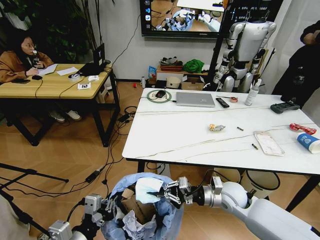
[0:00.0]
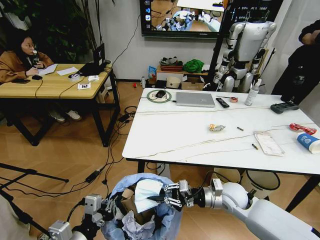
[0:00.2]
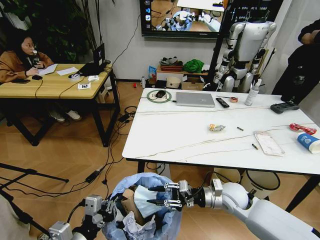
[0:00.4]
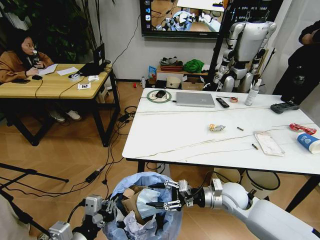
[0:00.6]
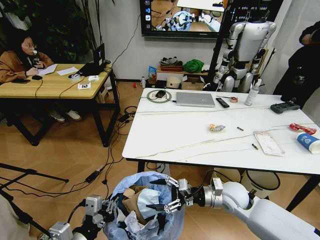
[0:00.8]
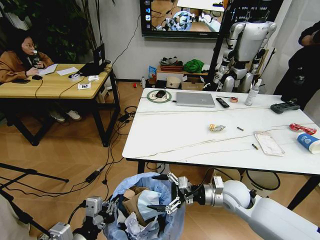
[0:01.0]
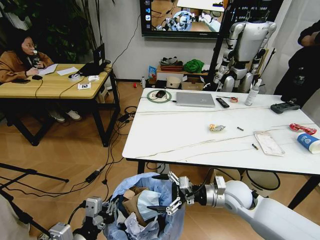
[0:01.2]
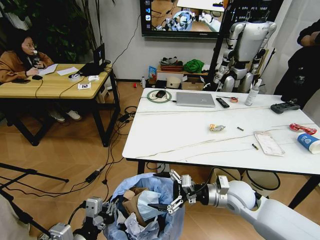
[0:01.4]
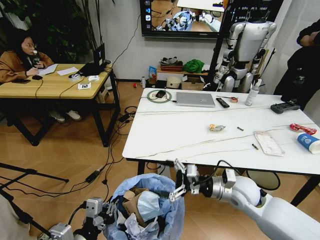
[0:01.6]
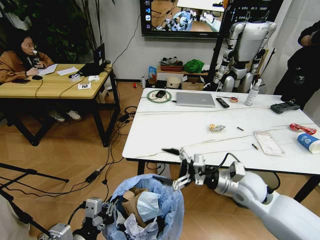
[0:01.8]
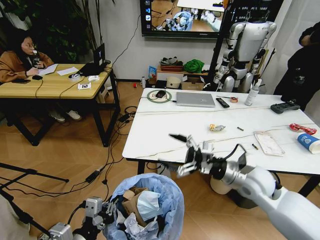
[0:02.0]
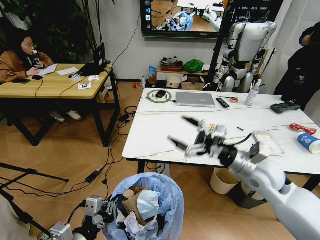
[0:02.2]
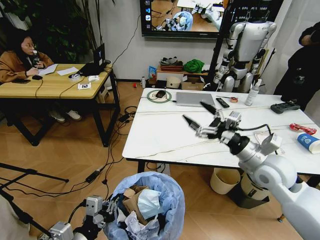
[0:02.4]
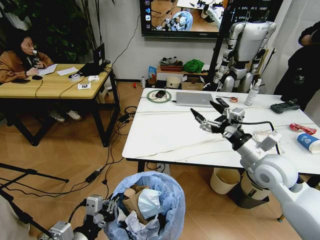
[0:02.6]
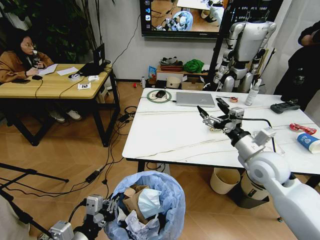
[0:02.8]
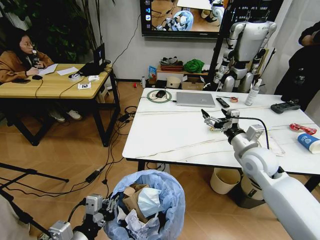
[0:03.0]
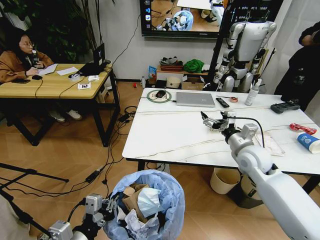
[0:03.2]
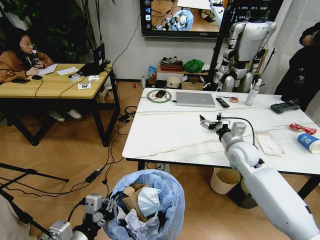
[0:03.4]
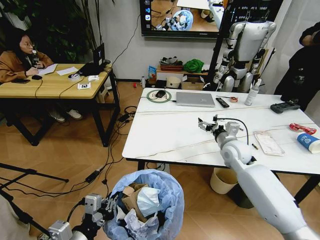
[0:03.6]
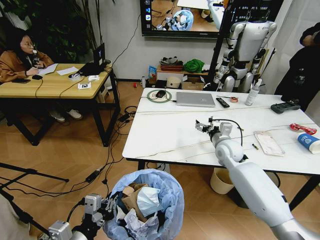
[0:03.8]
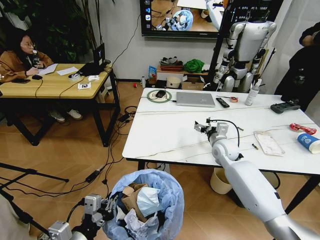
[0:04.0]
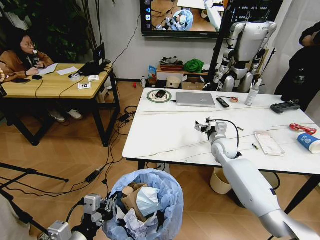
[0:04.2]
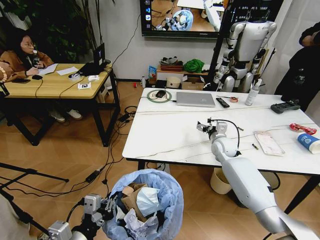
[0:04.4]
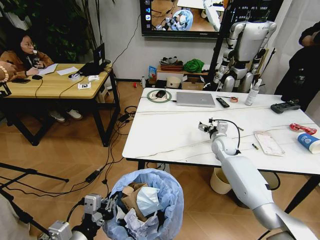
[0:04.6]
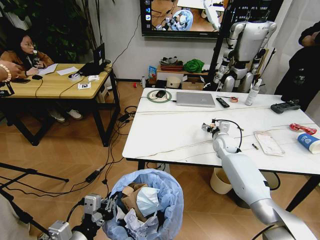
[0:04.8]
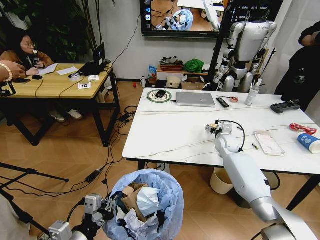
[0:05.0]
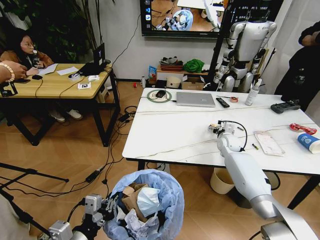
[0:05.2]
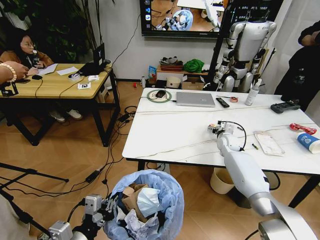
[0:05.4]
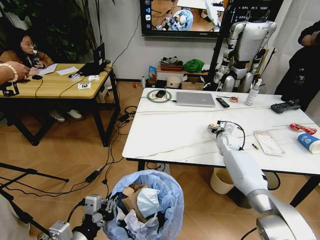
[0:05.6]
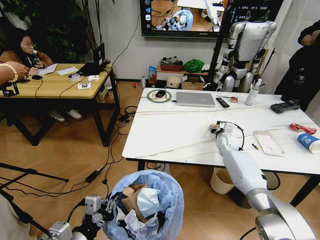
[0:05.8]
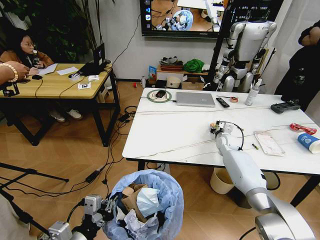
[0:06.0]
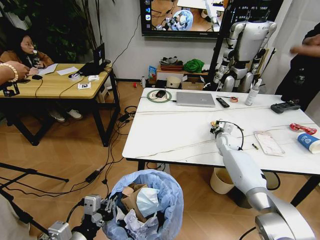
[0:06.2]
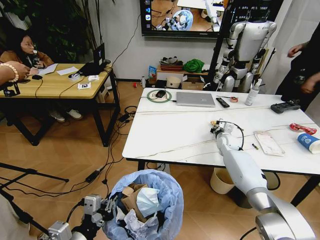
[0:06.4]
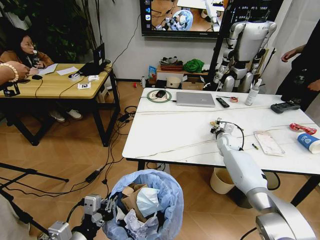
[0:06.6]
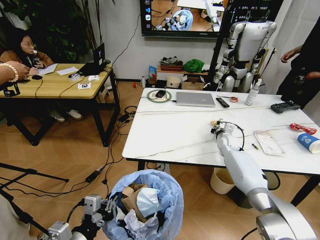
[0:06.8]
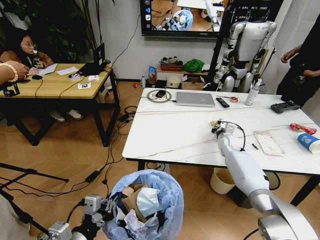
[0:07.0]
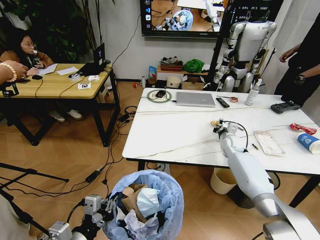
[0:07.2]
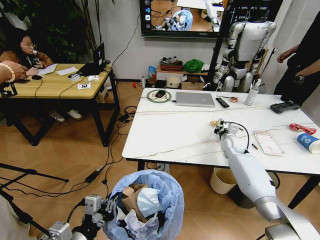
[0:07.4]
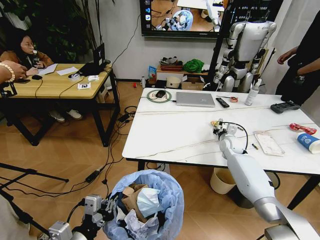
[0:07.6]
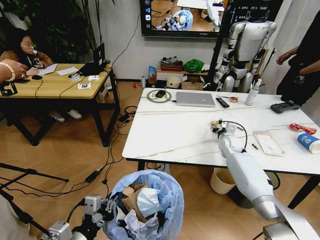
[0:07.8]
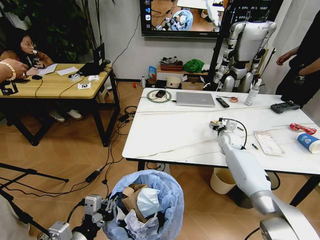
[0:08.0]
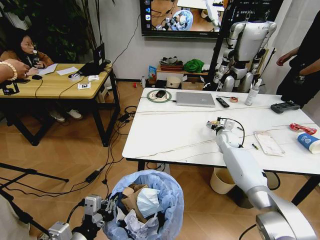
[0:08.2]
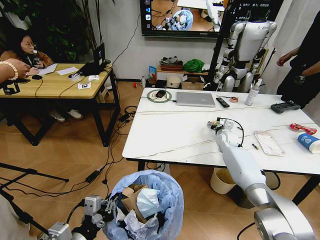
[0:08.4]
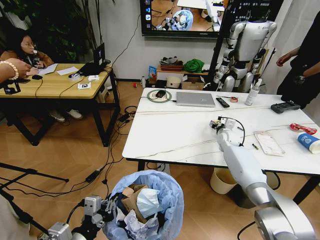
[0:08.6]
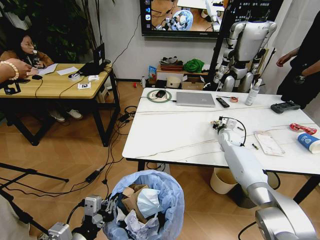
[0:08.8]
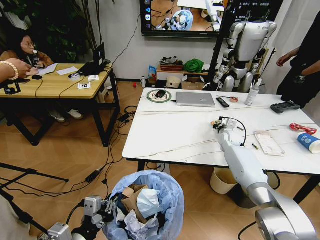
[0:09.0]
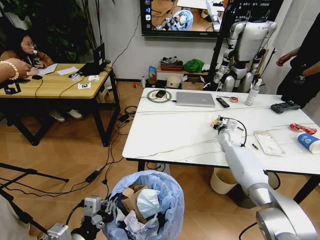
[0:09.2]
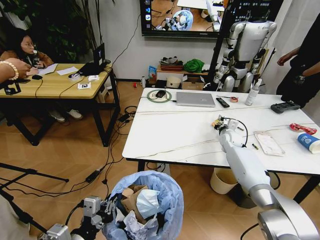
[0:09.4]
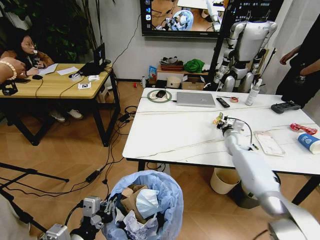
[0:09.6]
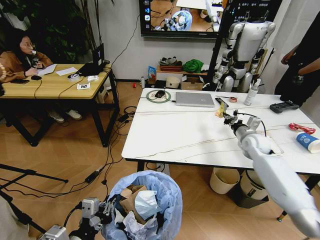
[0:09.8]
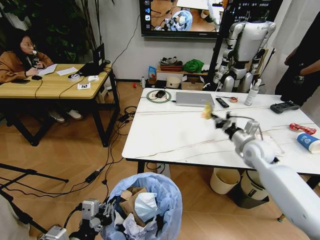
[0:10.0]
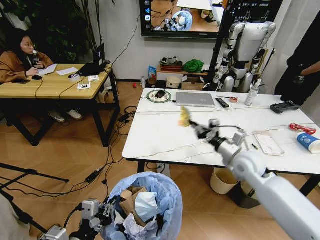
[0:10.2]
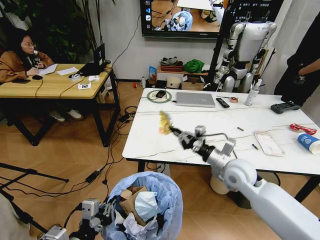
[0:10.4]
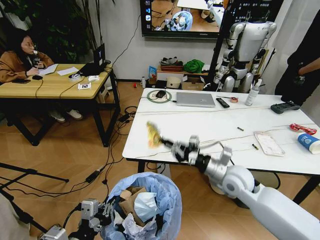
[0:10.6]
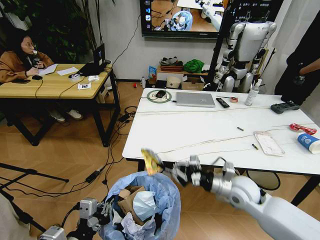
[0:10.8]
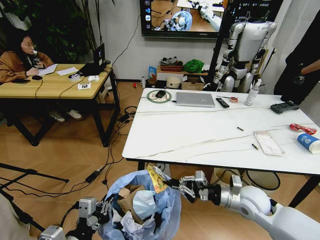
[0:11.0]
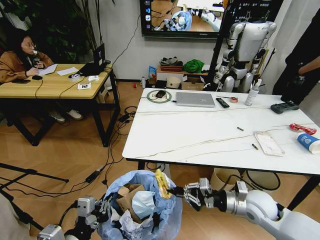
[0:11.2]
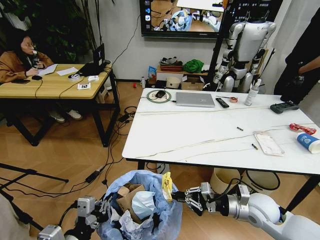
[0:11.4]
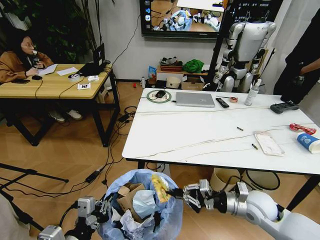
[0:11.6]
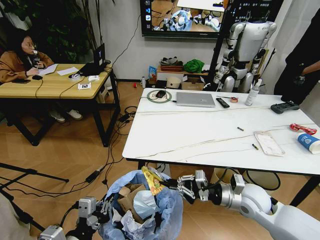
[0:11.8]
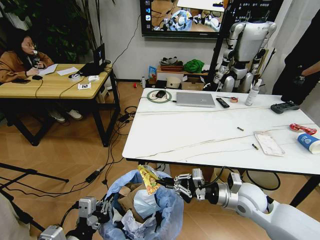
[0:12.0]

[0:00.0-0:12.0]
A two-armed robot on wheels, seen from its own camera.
Task of the whole recording: Pick up the trash bin and place the trash from the table into it.
0:00.0 to 0:01.6: The right gripper shifts approximately 5 cm upward, and opens its fingers.
0:01.6 to 0:03.0: The right gripper goes about 10 cm upward, forward and to the right.
0:03.0 to 0:04.4: The right gripper heads forward and downward, covering some 15 cm.
0:04.4 to 0:06.0: The right gripper goes approximately 5 cm forward, and closes.
0:06.0 to 0:07.6: The grippers stay close to where they were, moving slightly.
0:07.6 to 0:09.0: The right gripper opens, then closes once more.
0:09.0 to 0:10.4: The right gripper travels backward and upward by roughly 25 cm.
0:10.4 to 0:12.0: The right gripper heads backward, covering approximately 5 cm.

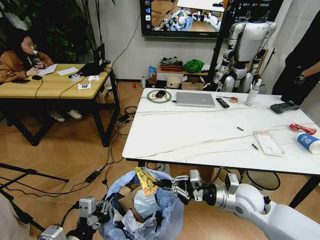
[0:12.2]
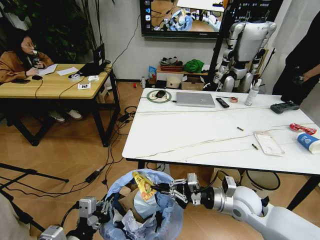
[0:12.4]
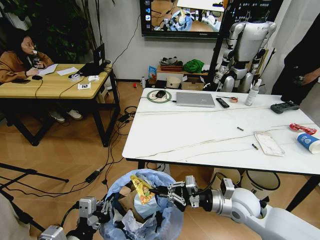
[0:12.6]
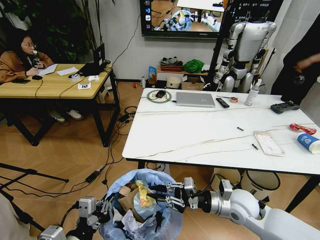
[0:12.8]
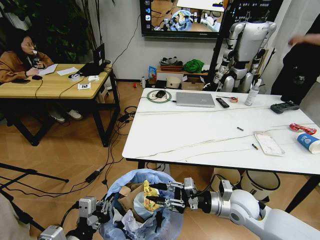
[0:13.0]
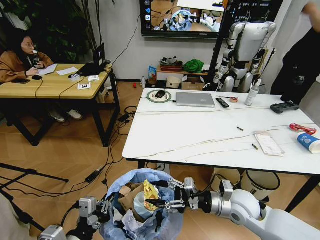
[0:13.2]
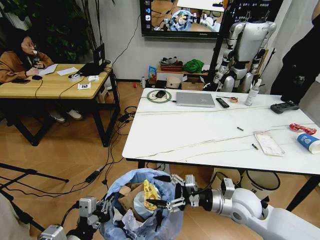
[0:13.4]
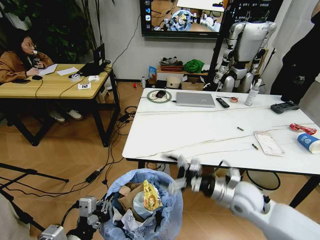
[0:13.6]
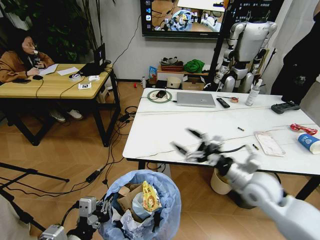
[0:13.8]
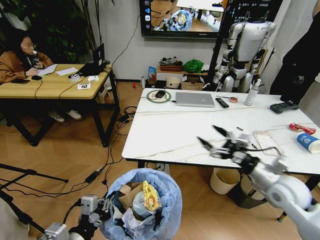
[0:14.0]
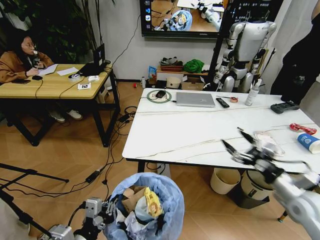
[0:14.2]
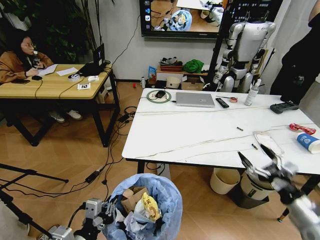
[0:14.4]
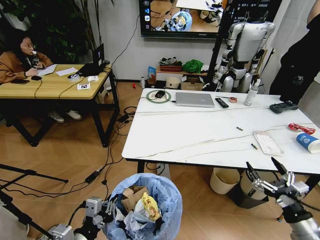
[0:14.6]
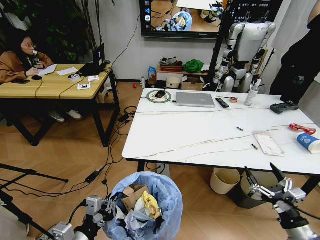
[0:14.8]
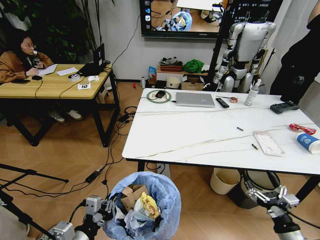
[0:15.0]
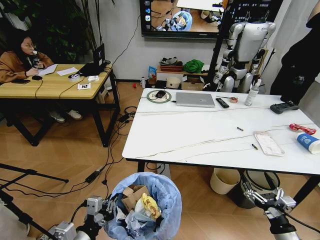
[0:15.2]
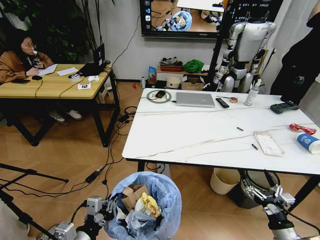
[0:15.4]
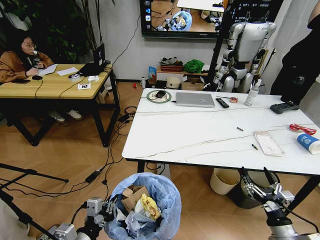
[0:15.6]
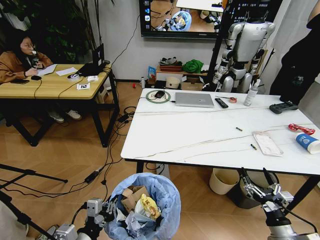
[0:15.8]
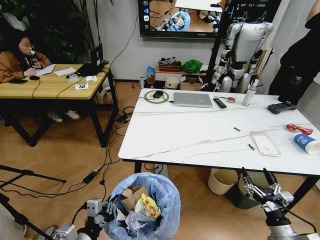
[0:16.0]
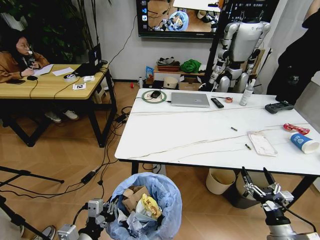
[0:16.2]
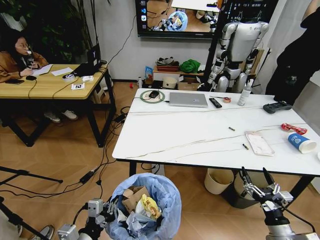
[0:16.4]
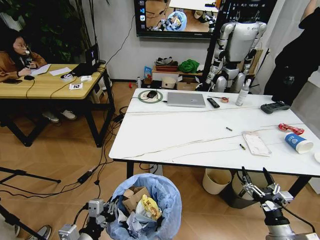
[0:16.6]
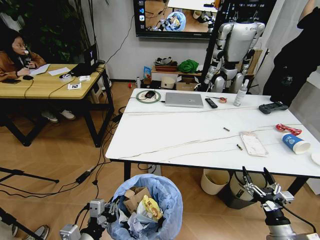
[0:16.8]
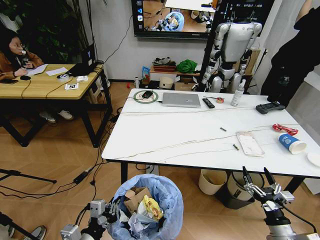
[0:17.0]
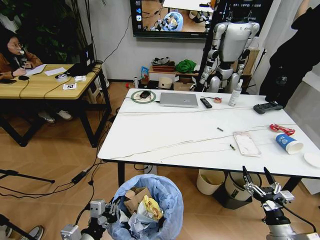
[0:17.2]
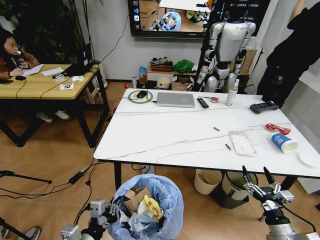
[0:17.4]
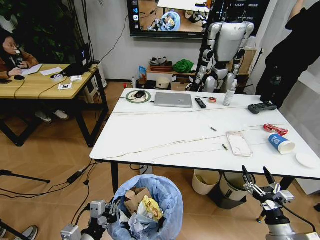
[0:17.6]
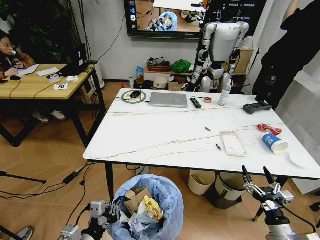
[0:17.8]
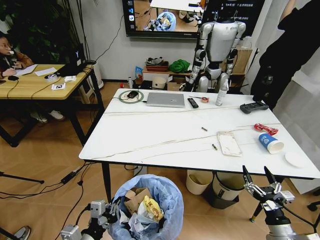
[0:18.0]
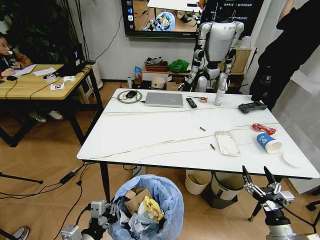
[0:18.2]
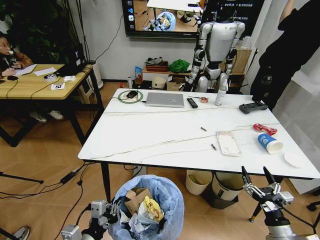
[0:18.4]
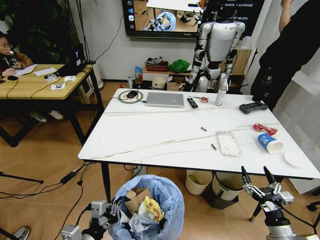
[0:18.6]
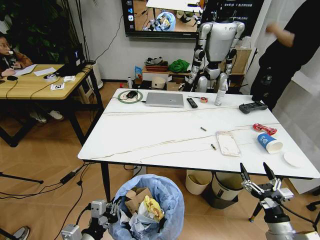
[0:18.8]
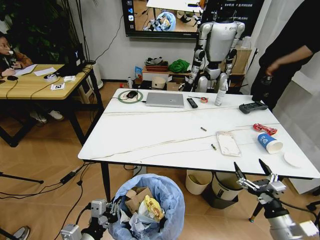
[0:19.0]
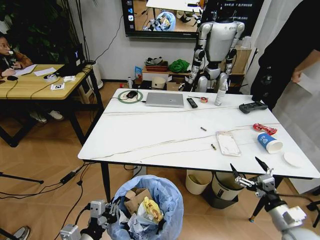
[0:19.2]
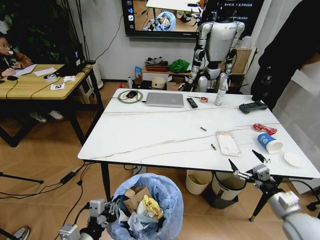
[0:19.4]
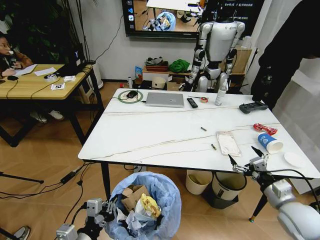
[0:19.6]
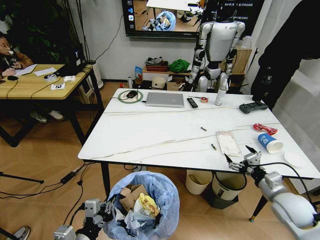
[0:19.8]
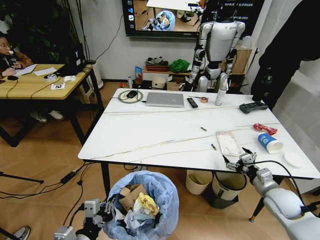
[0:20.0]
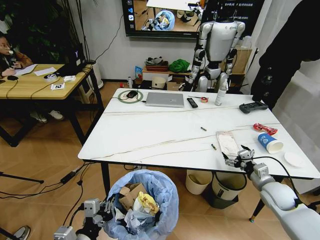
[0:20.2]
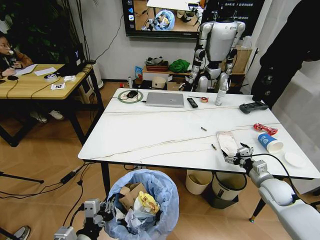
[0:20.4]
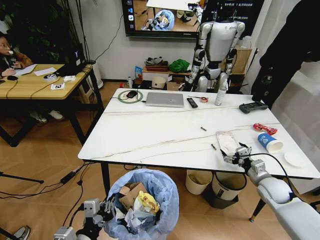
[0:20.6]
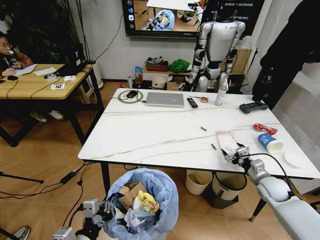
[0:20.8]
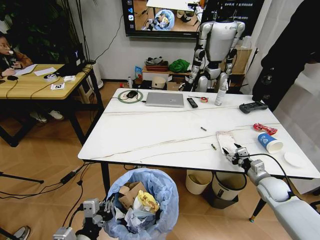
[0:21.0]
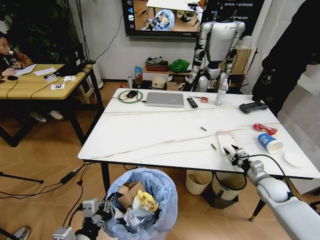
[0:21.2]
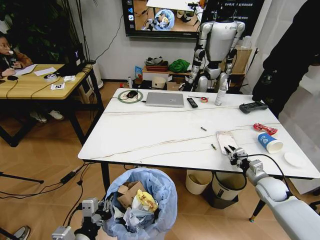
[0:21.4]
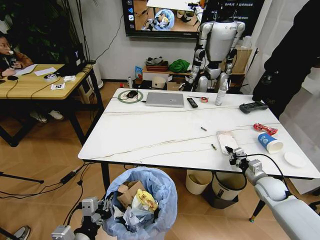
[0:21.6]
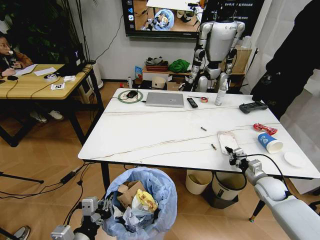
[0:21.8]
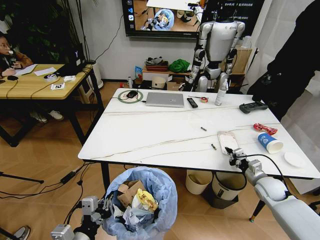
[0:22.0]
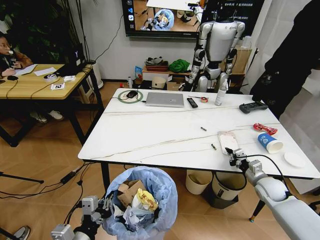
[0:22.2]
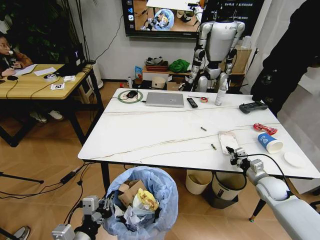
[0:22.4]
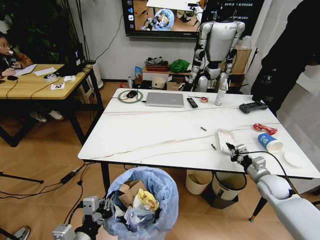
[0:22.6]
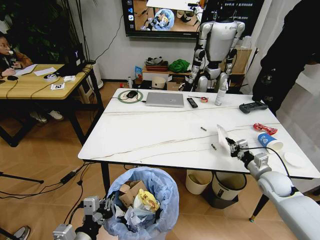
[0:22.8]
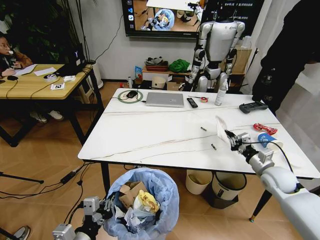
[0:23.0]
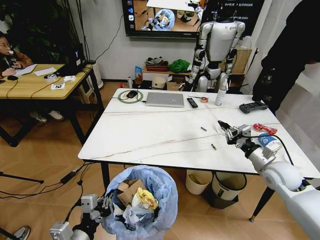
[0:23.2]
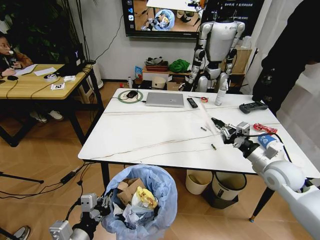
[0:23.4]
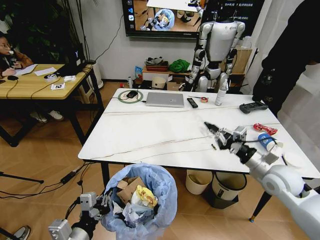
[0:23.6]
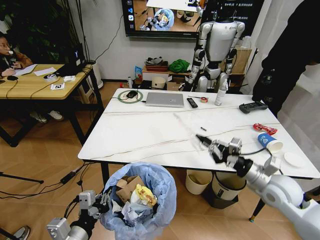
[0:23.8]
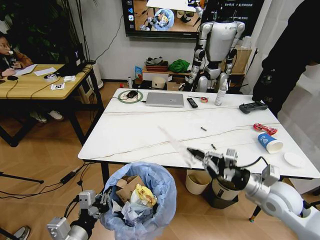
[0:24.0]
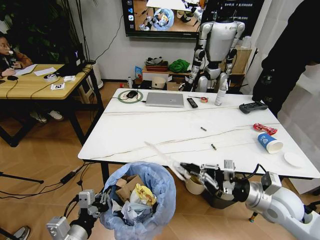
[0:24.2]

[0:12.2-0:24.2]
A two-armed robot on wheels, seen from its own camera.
Task of the whole recording: Pick up the trash bin and place the trash from the table into it.
0:12.2 to 0:13.8: The right gripper travels upward by some 5 cm, and opens.
0:13.8 to 0:15.2: The right gripper shifts some 25 cm backward, downward and to the right.
0:18.2 to 0:19.8: The right gripper heads forward and upward, covering approximately 15 cm.
0:19.8 to 0:21.2: The right gripper is displaced forward and downward by roughly 10 cm, and closes its fingers.
0:21.2 to 0:22.6: The right gripper closes up.
0:22.6 to 0:24.2: The right gripper is displaced upward, backward and to the left by roughly 20 cm.
